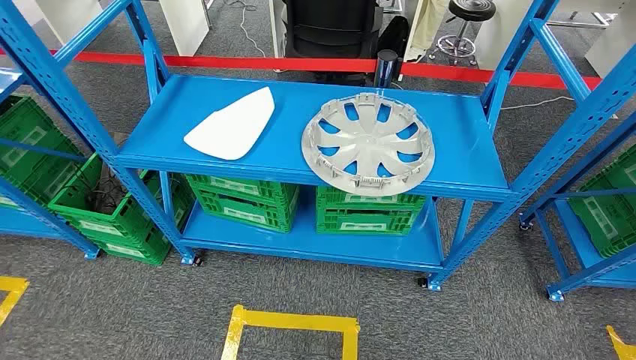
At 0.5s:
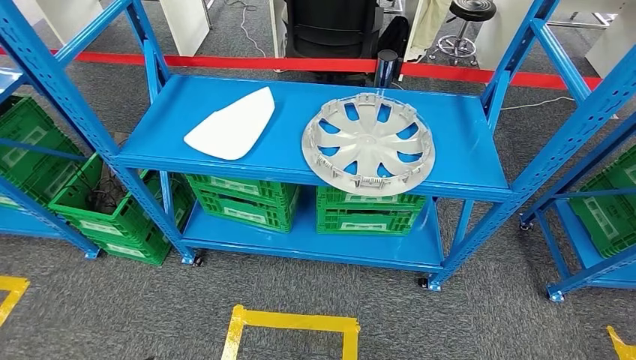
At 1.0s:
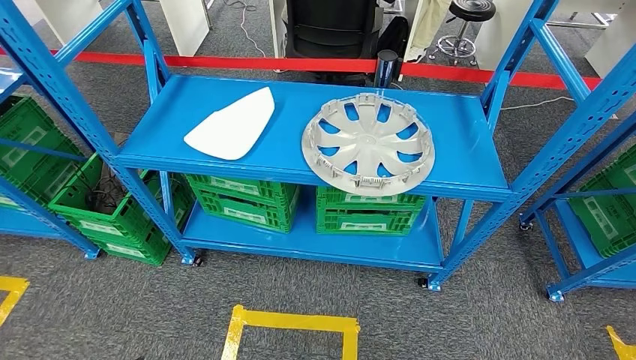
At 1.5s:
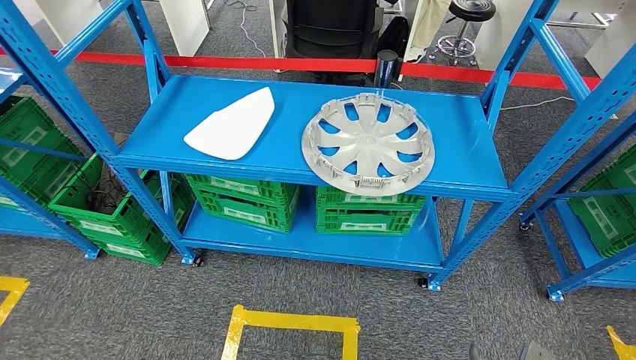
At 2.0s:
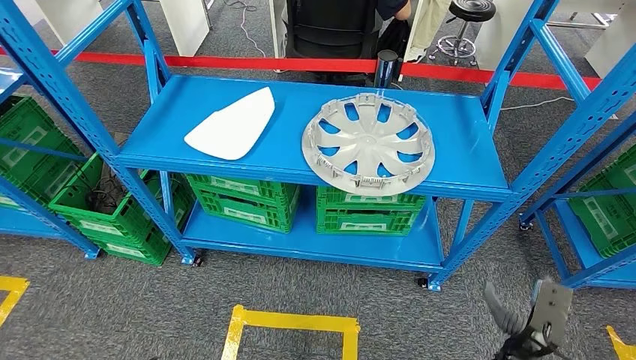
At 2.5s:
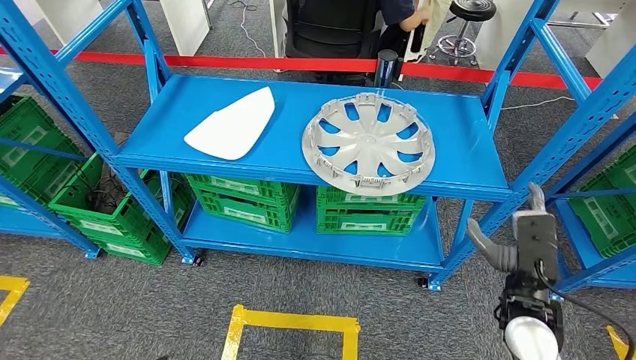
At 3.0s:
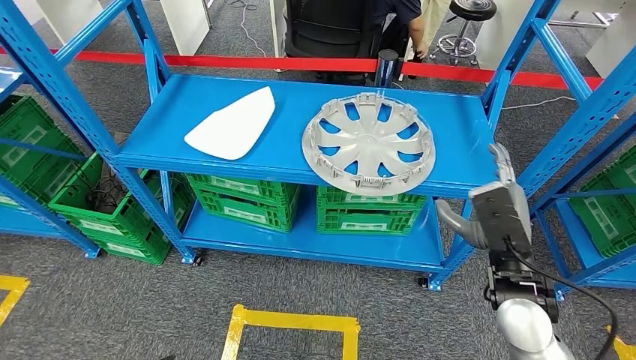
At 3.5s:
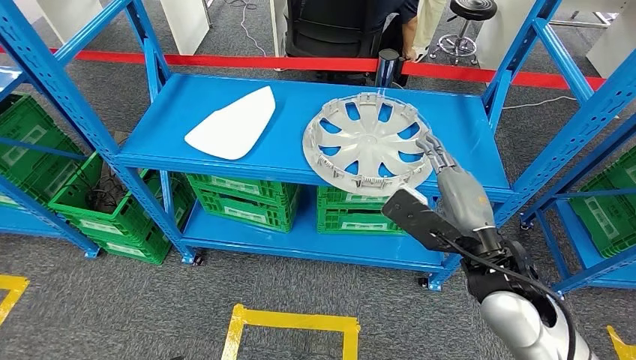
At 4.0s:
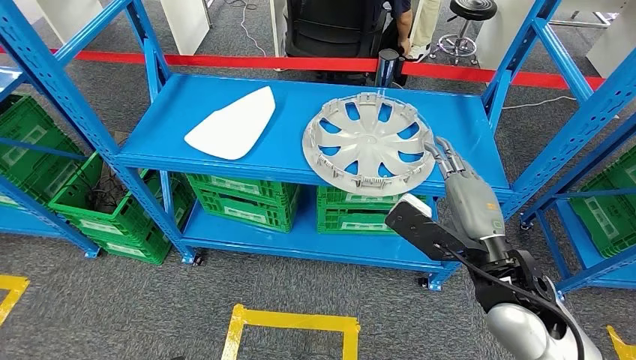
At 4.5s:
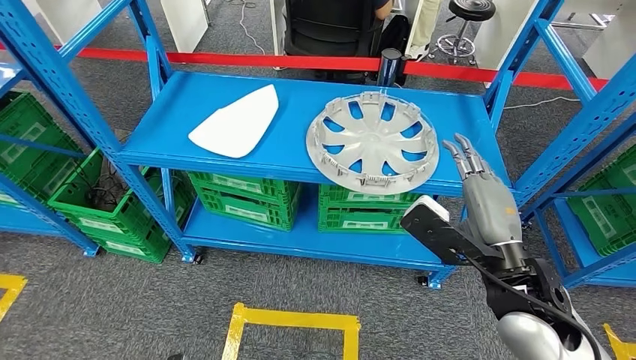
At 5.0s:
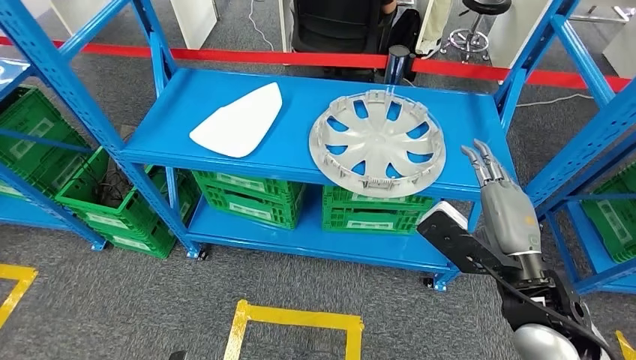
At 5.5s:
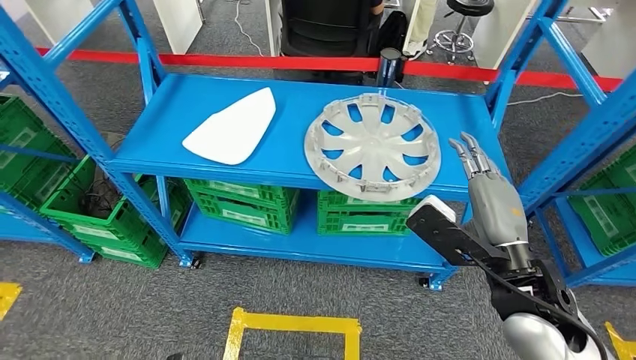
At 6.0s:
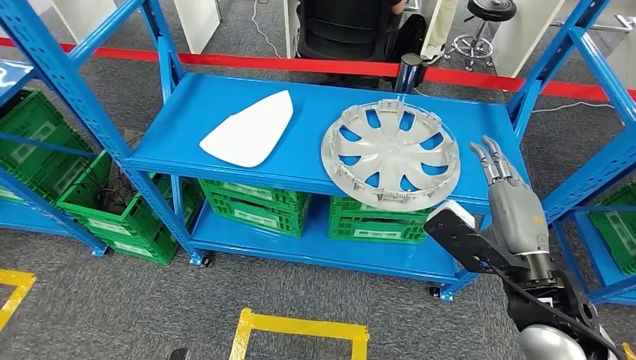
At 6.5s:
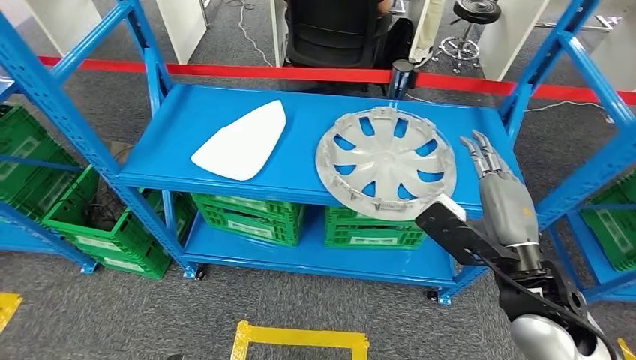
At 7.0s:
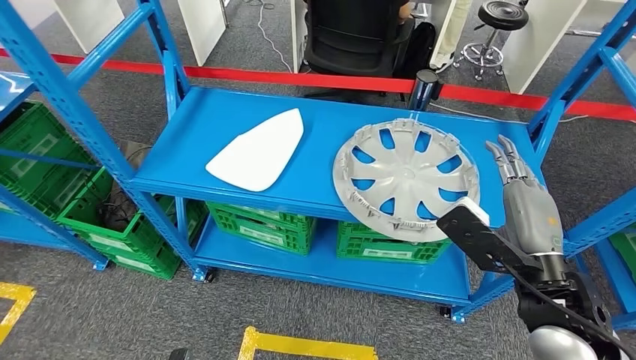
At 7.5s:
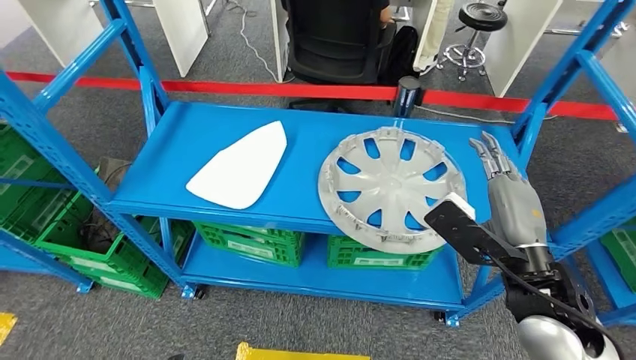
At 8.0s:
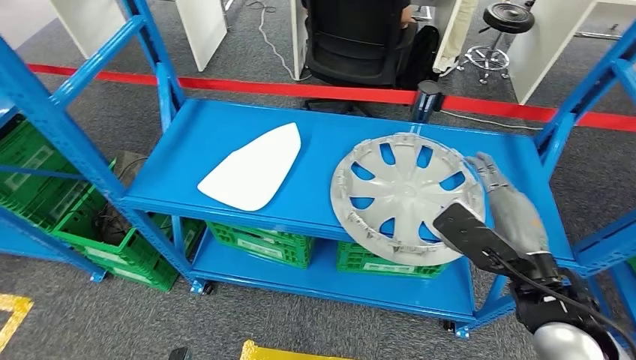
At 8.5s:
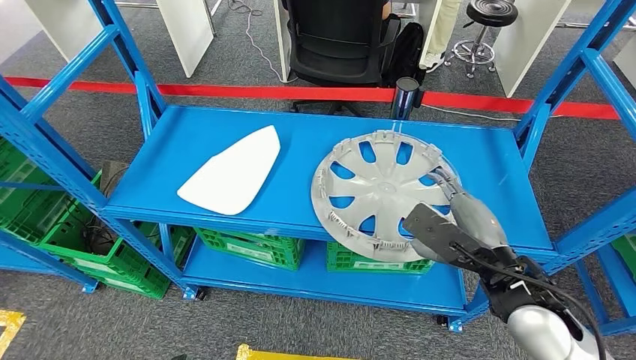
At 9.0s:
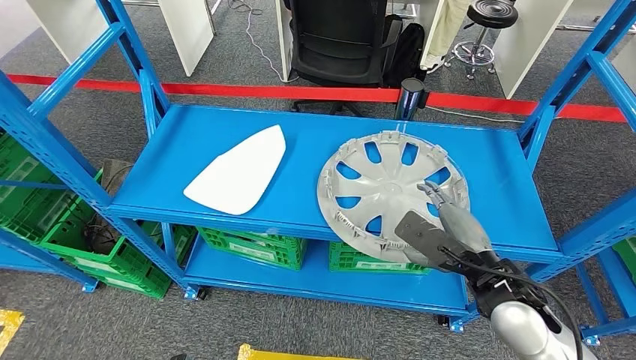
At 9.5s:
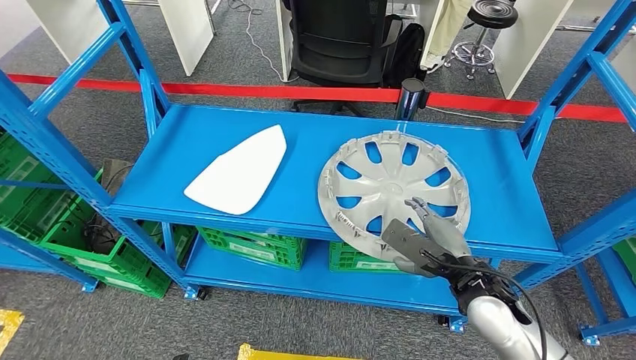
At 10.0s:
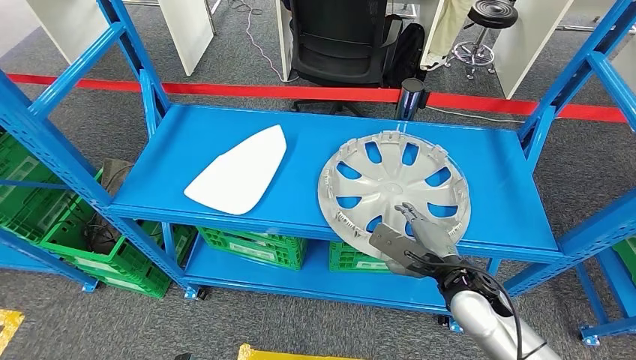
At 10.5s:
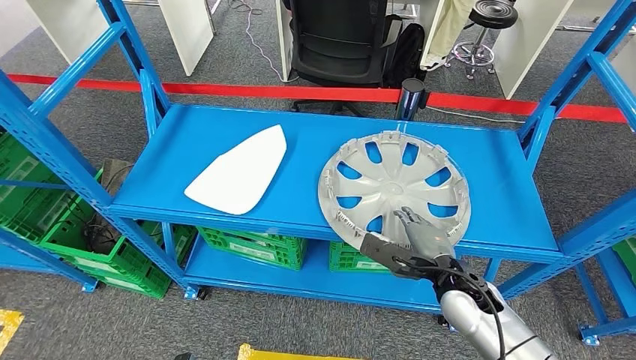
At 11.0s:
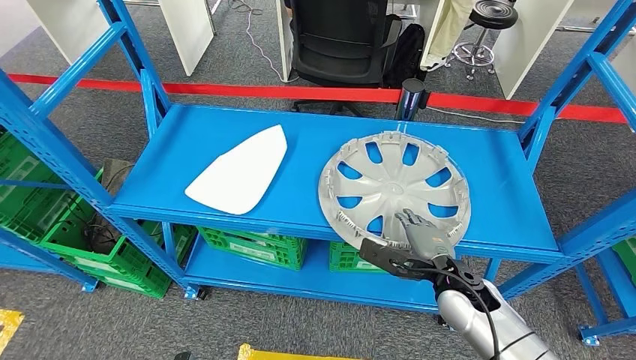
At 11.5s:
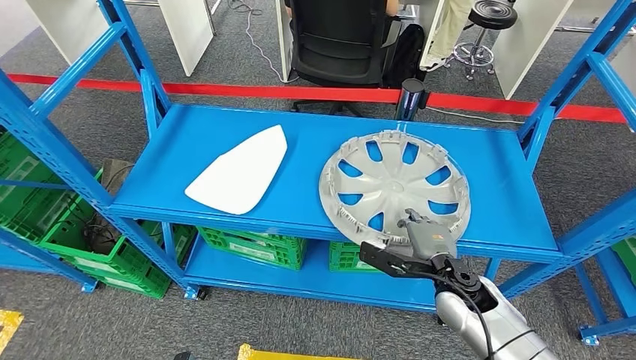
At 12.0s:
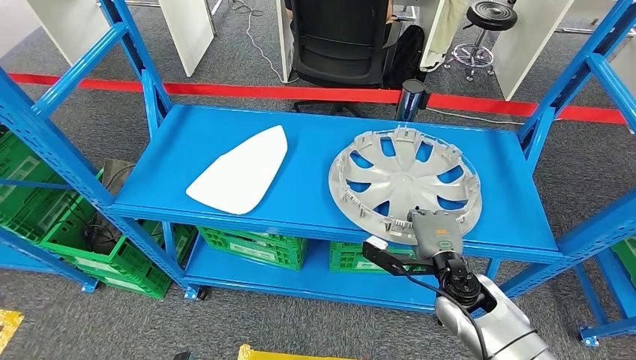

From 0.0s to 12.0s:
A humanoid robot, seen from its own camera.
From 2.0s to 4.0s: The right hand heads upward and to the left, covering about 25 cm.

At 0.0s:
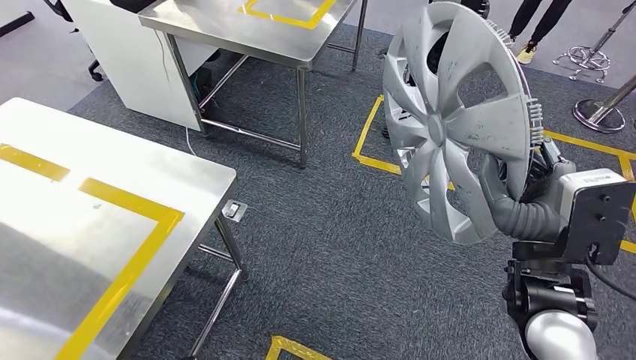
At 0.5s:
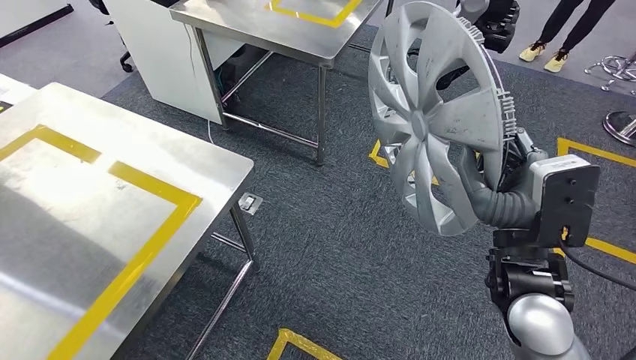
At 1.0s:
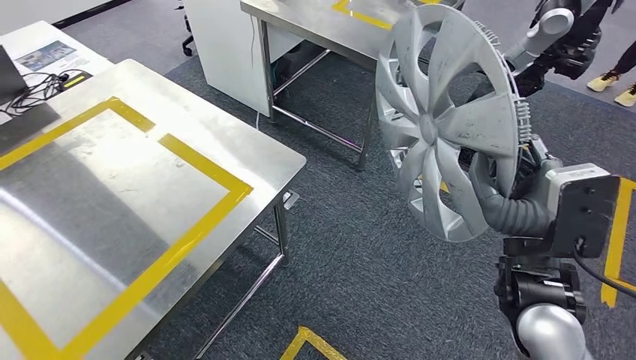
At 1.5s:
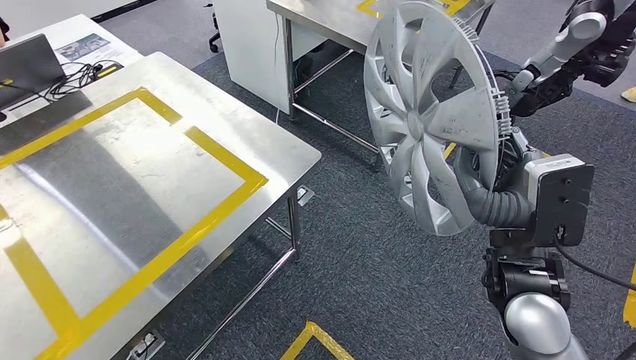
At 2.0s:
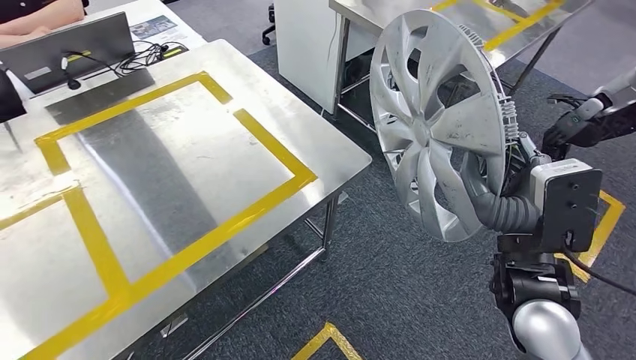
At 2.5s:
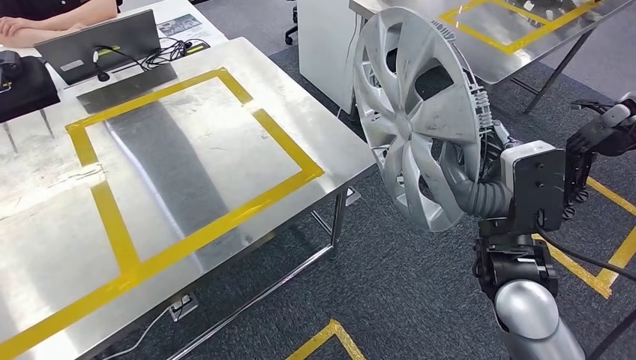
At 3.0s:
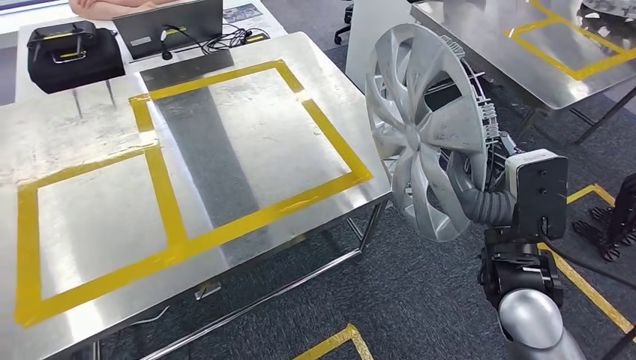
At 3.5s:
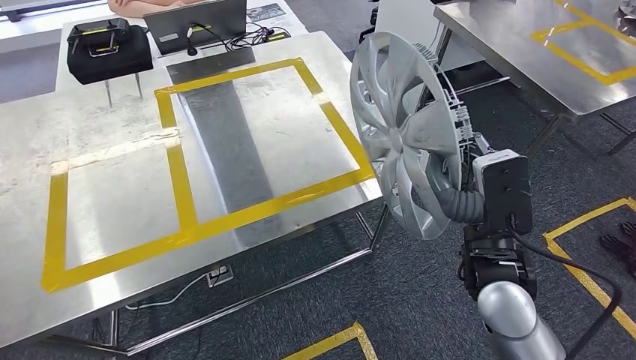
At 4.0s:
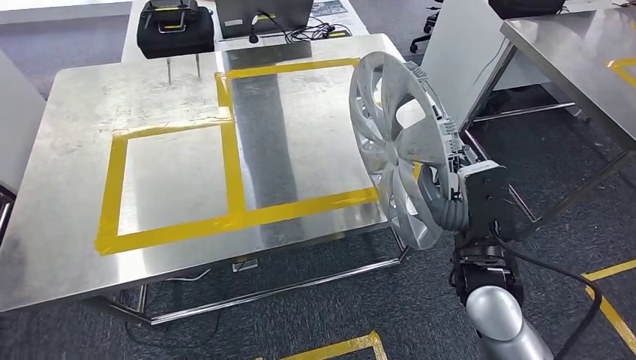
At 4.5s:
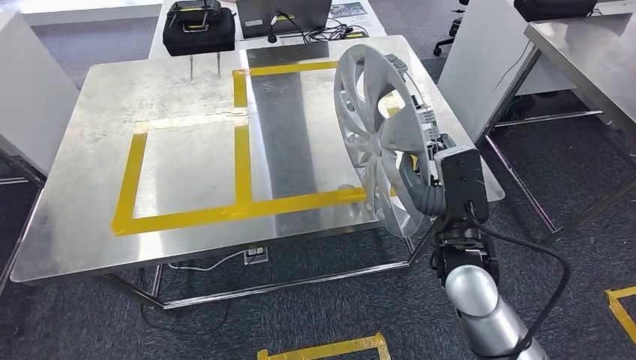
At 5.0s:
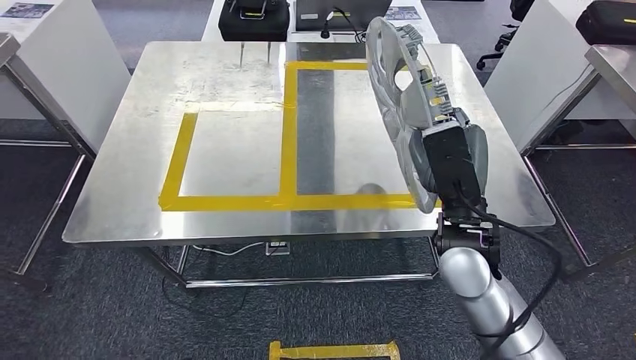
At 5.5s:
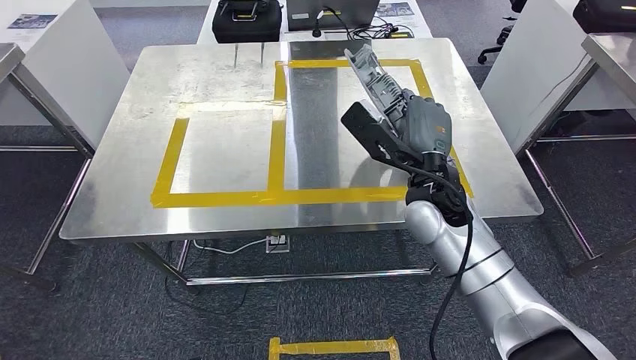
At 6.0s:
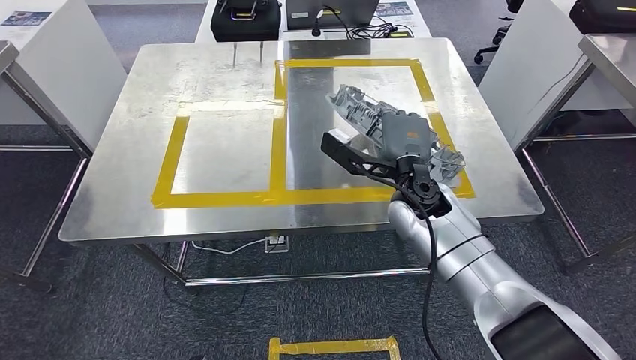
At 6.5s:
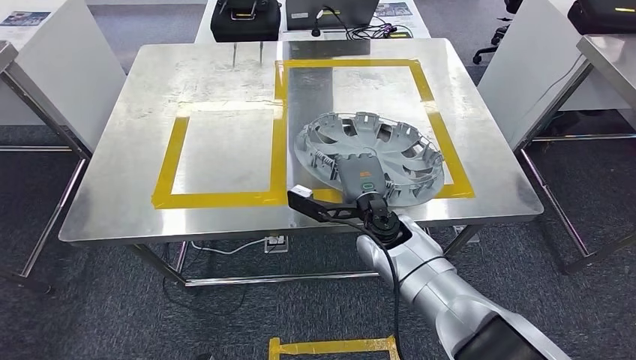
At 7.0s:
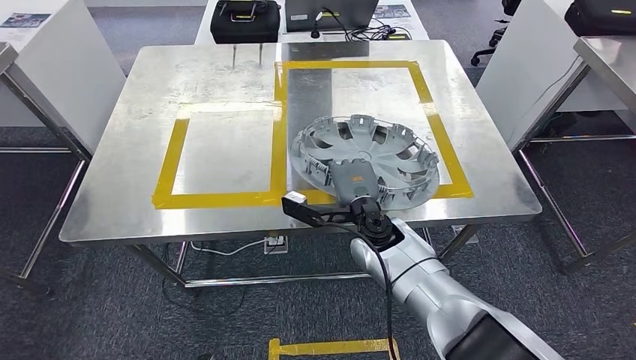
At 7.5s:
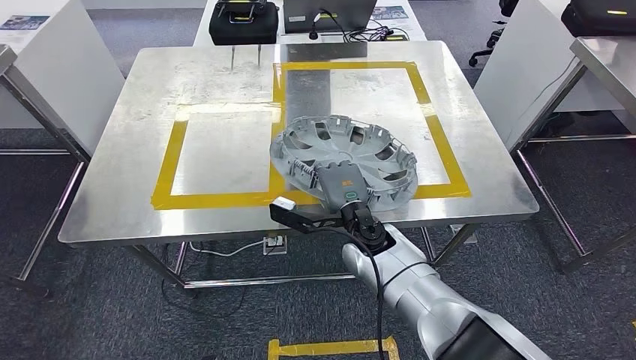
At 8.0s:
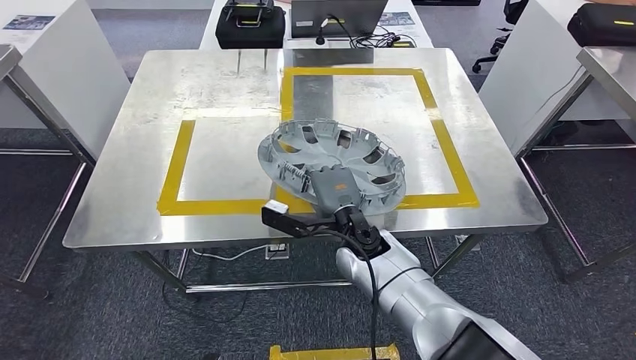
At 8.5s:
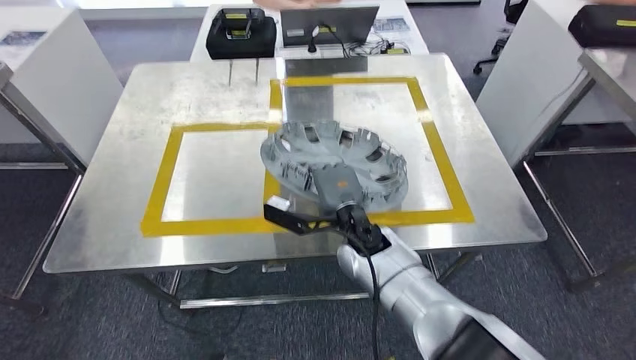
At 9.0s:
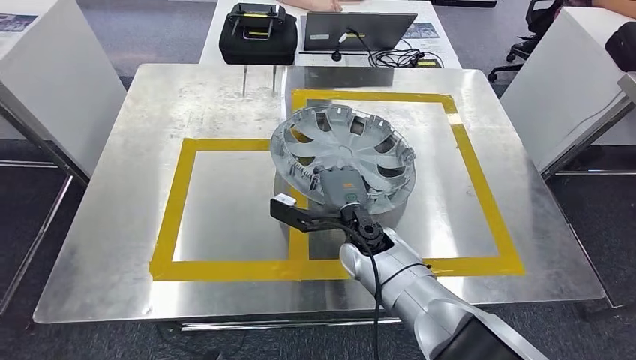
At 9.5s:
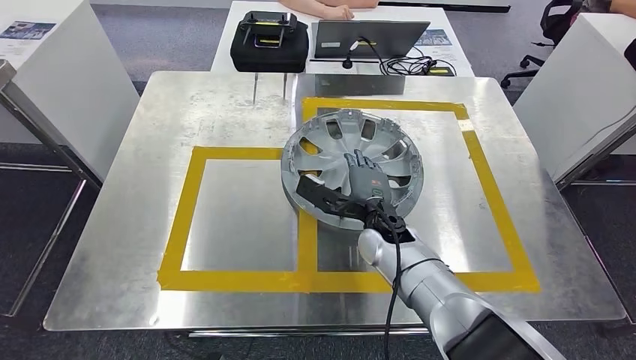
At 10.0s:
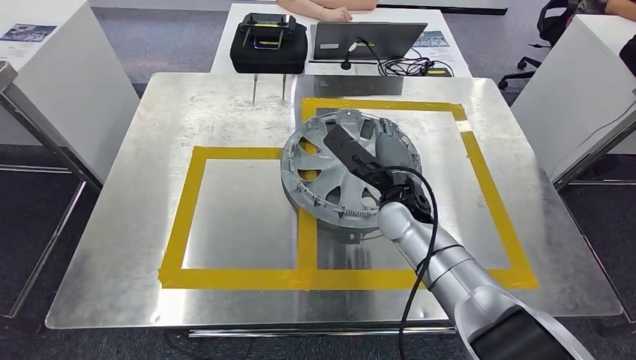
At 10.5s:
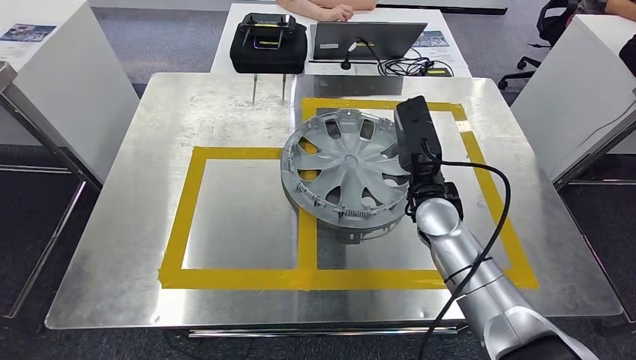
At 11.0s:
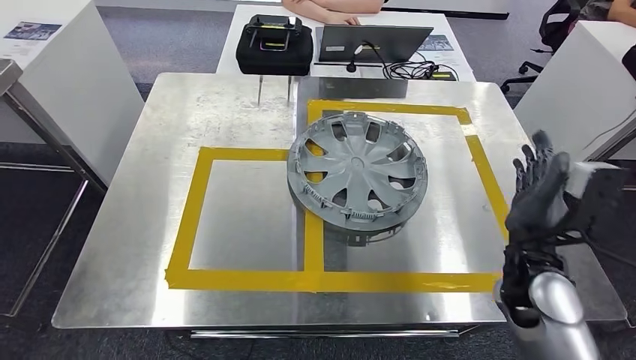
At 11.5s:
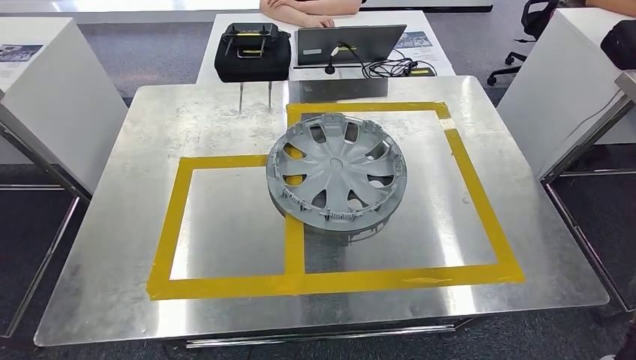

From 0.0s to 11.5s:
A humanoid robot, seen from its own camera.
Step, from 0.0s to 4.5s: Bring the small component to the front of the workbench.
Step, from 5.0s to 9.5s: Insert the small component into the corresponding slot on the workbench.
